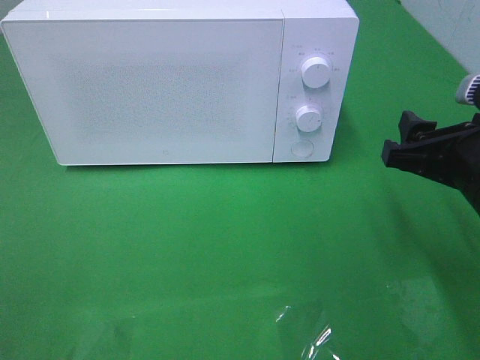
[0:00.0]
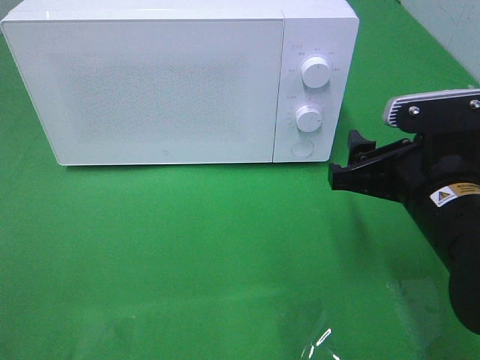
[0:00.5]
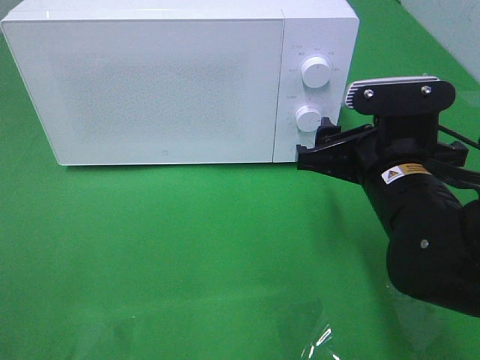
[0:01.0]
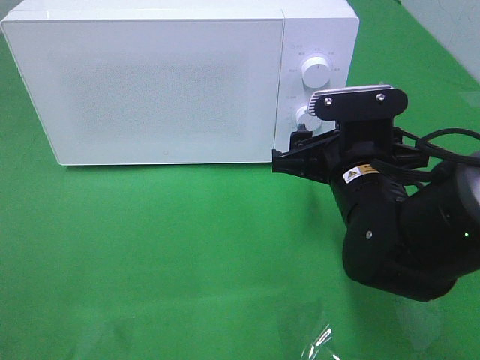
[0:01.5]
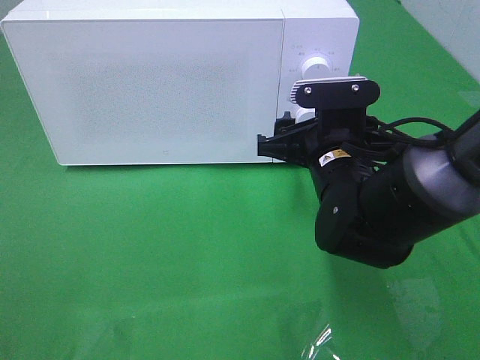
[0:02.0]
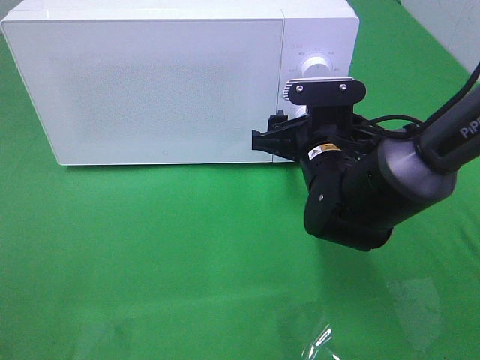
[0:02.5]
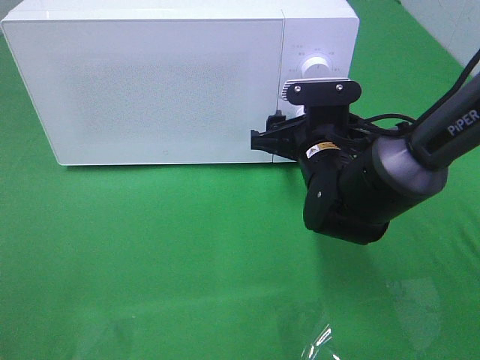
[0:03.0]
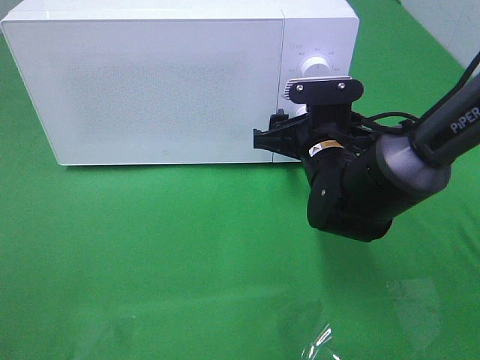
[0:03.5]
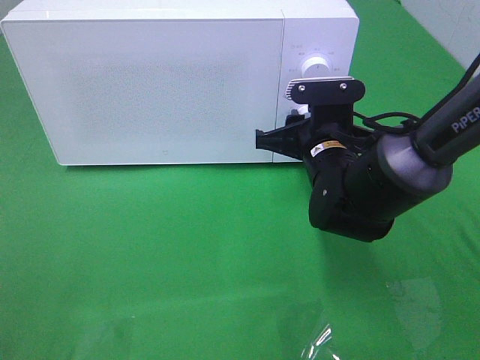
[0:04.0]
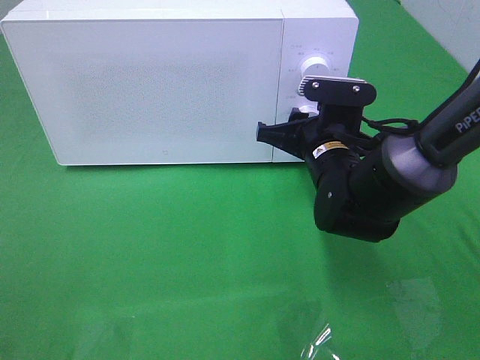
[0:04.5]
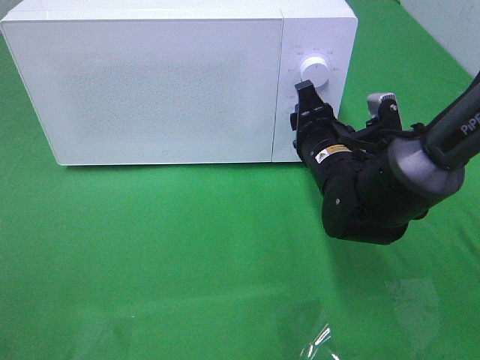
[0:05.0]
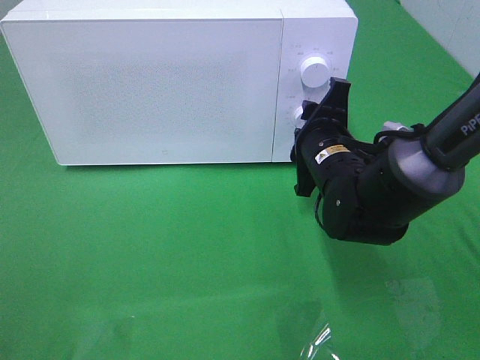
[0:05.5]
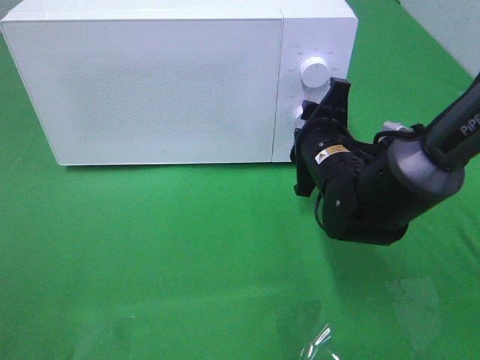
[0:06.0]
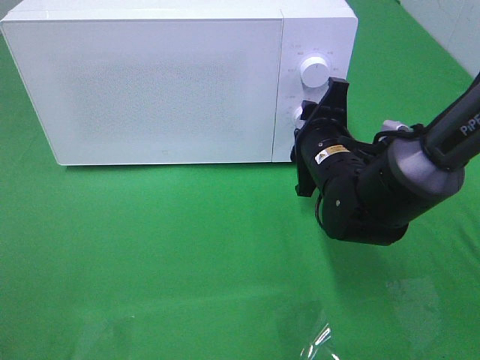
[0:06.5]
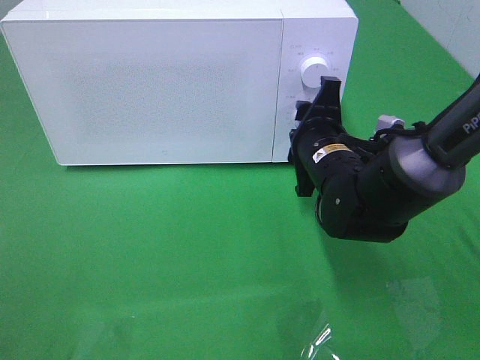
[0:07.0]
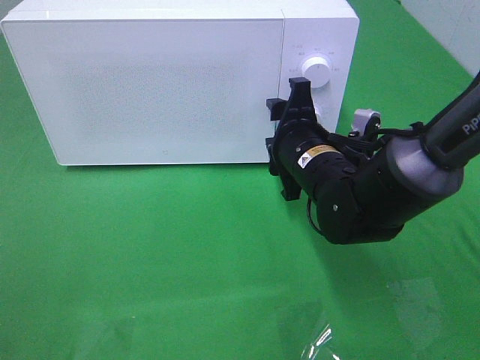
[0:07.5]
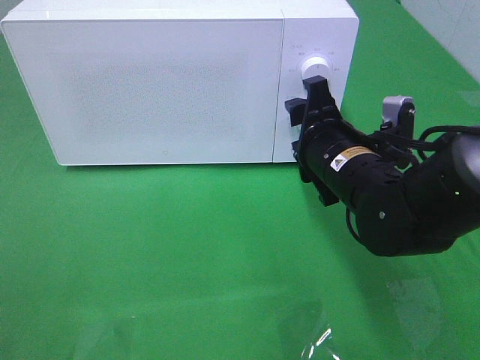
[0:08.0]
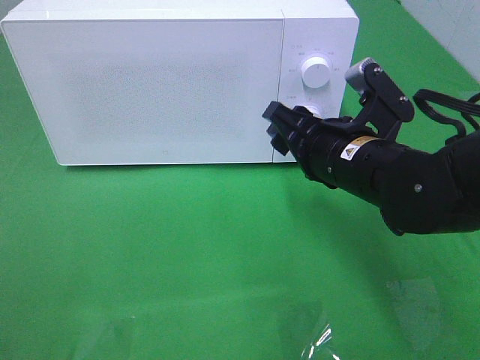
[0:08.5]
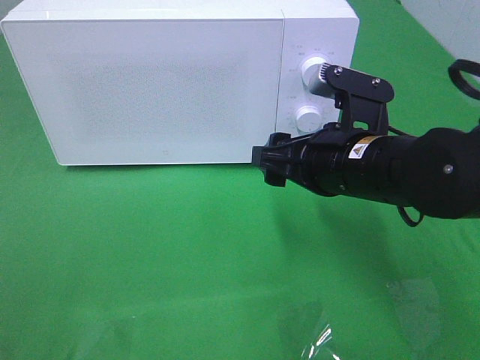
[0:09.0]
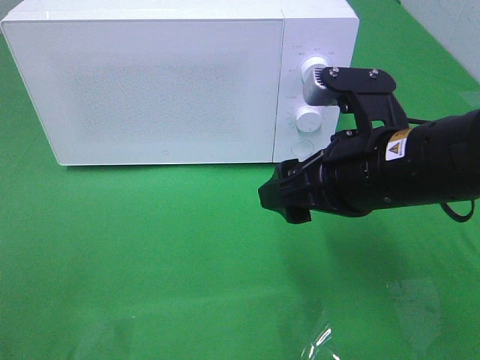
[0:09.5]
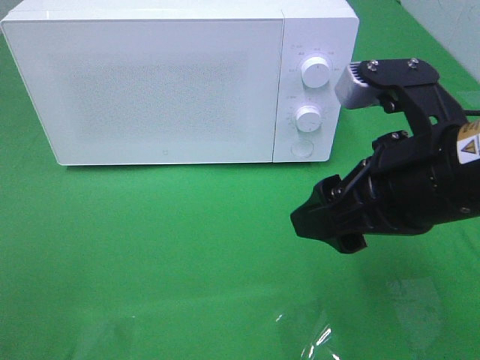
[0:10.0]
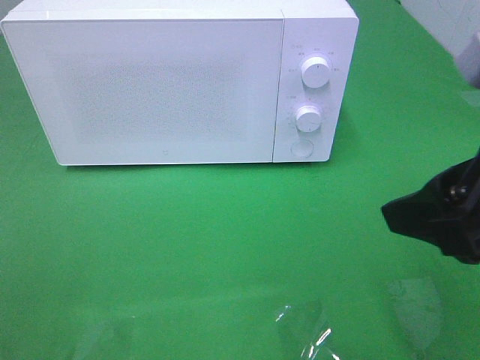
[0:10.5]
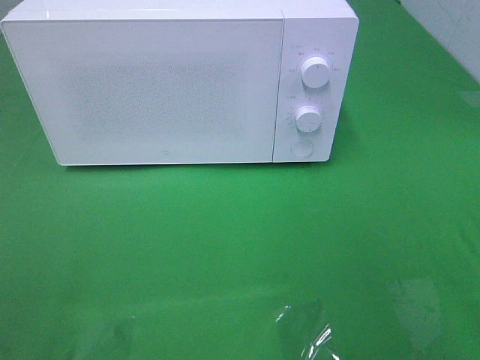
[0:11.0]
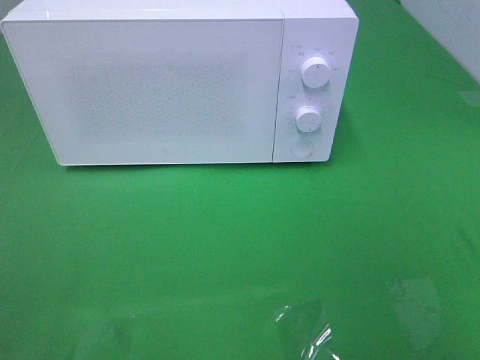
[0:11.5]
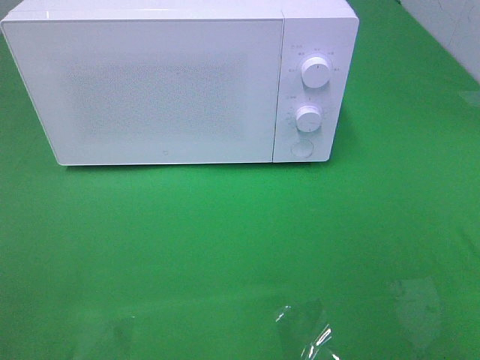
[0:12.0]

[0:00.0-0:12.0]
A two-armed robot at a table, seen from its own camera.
Task of the whole recording: Heat the burger.
Step, 0:00.0 to 0:07.5: Right hand: twist timer button.
0:00.0 to 0:02.0: The right gripper is displaced to the left and forward by about 15 cm.
0:02.0 to 0:04.0: The right gripper closes.
0:08.0 to 0:10.0: The right gripper is displaced backward and upward by roughly 15 cm.
0:10.0 to 0:12.0: The right gripper is displaced backward and to the right by about 25 cm.

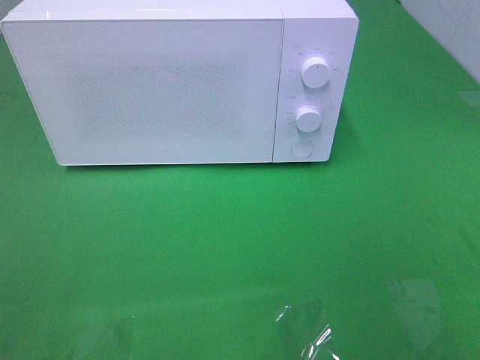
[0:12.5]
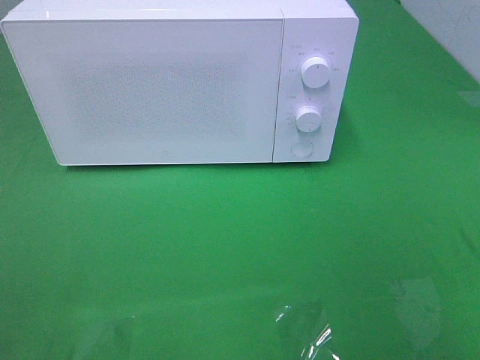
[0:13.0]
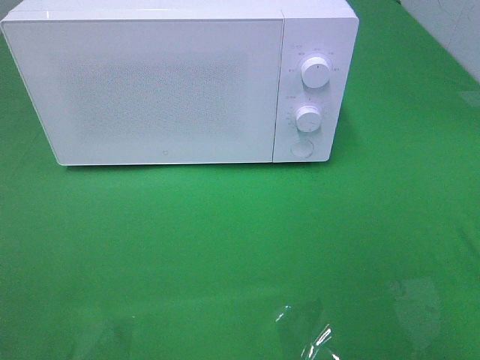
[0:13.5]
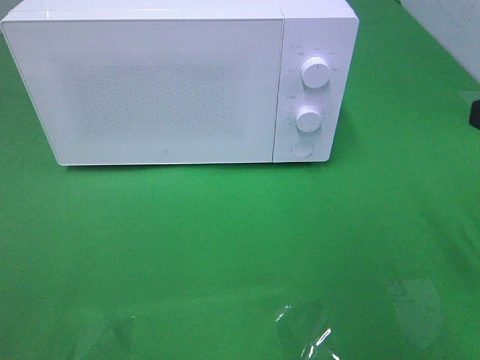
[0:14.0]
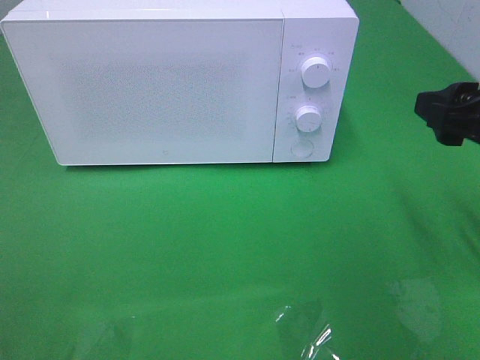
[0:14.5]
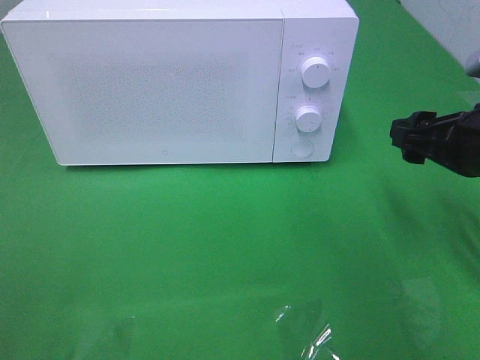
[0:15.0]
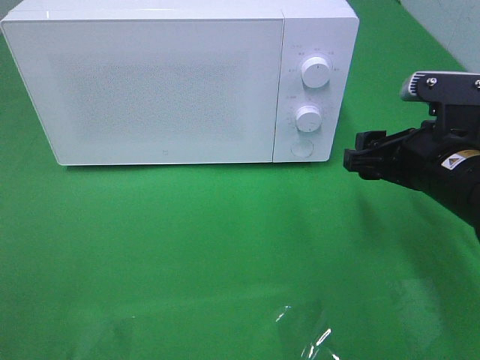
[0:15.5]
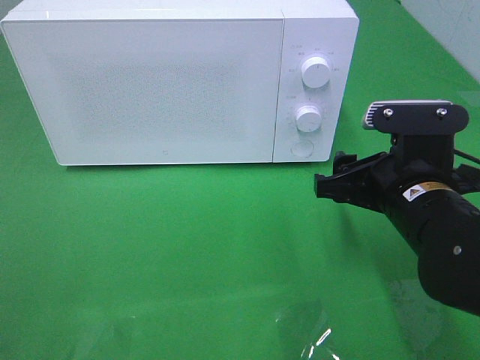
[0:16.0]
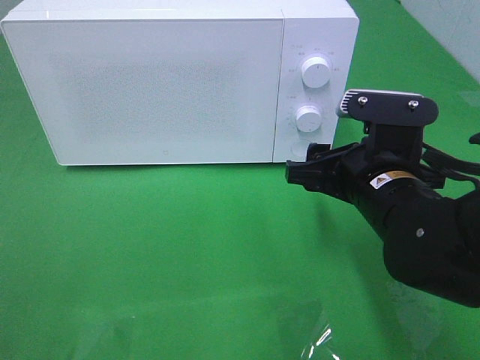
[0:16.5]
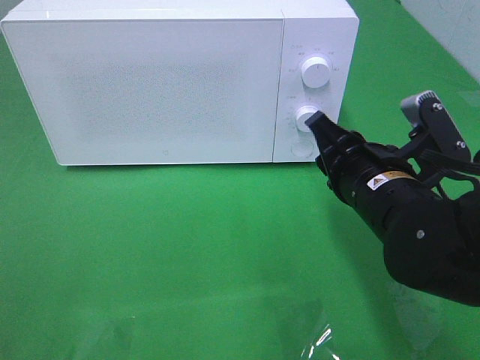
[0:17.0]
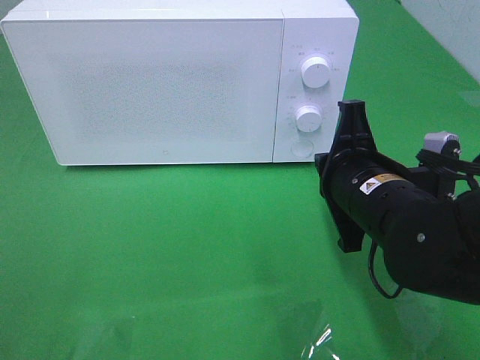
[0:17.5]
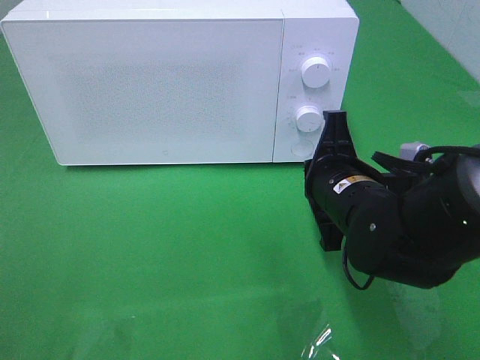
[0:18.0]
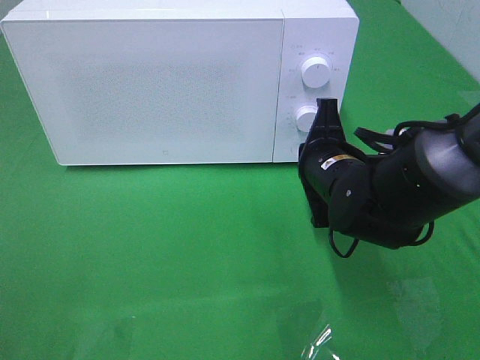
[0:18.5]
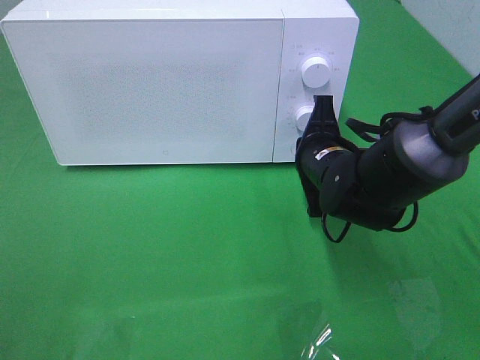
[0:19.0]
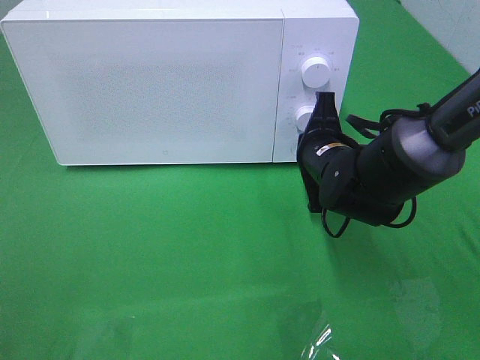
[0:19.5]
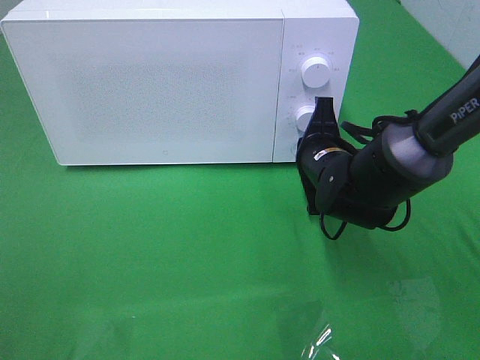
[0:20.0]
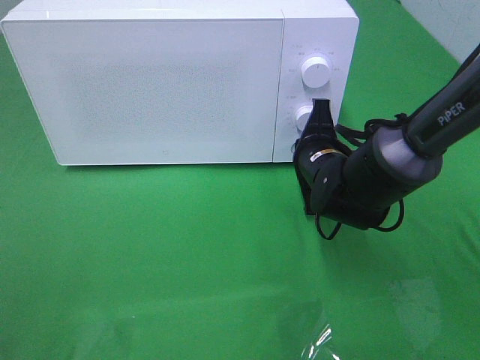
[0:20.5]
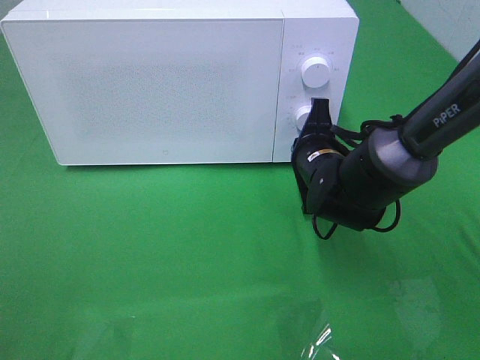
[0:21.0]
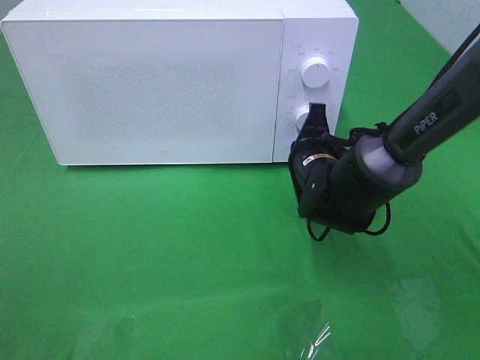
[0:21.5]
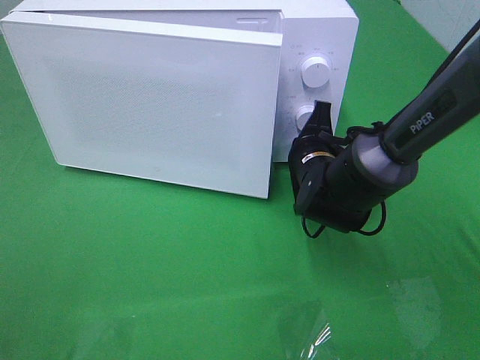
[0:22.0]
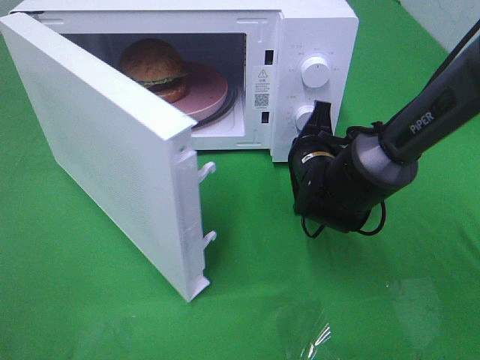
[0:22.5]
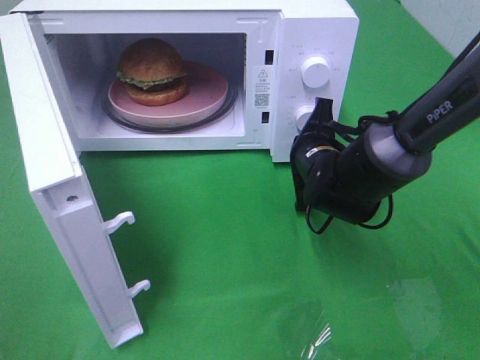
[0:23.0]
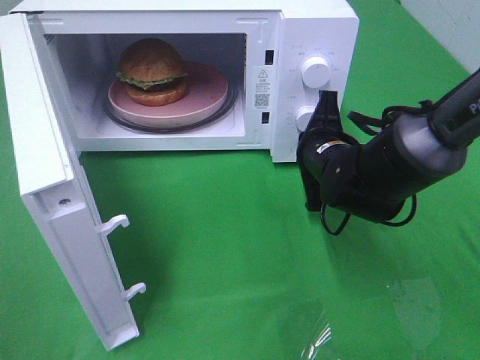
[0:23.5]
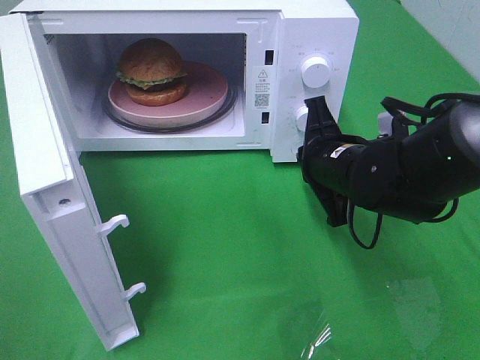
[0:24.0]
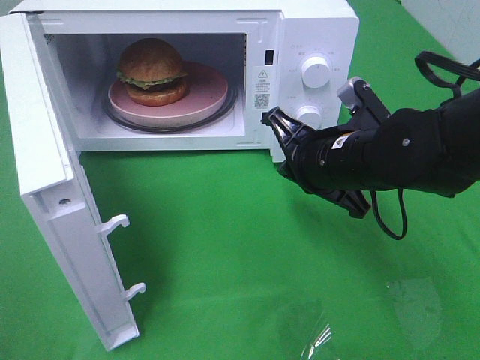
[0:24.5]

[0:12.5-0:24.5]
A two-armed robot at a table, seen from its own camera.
Task of the whole recording: Heat the burger.
Step, 0:12.5 to 0:23.5: Right hand: press the switch.
0:12.5 to 0:14.5: The right gripper is displaced forward by approximately 20 cm.
0:14.5 to 0:16.5: The right gripper goes about 15 cm to the left and downward.
0:16.5 to 0:18.5: The right gripper is displaced forward by approximately 5 cm, and closes.
0:18.5 to 0:20.5: The right gripper shifts by some 5 cm.
0:22.5 to 0:24.5: The right gripper goes some 10 cm upward and backward.

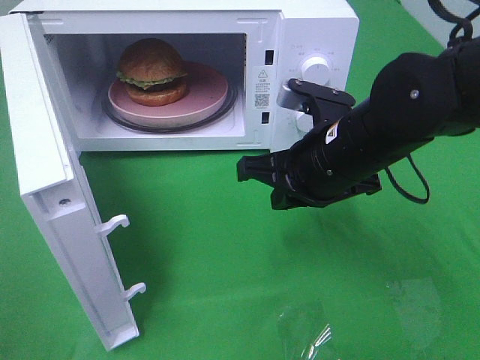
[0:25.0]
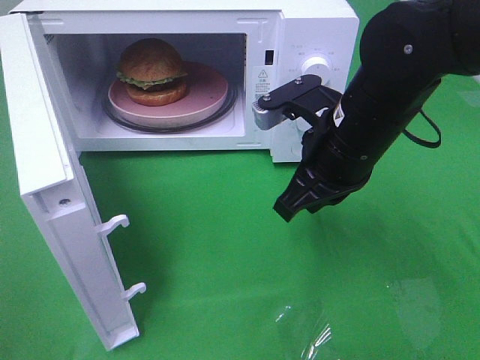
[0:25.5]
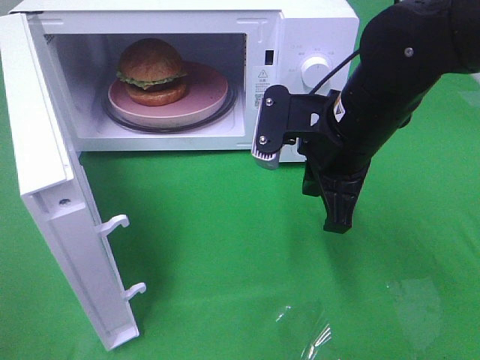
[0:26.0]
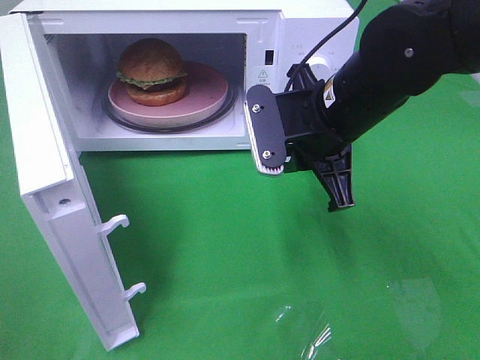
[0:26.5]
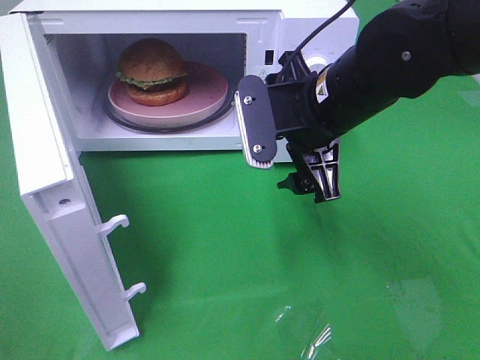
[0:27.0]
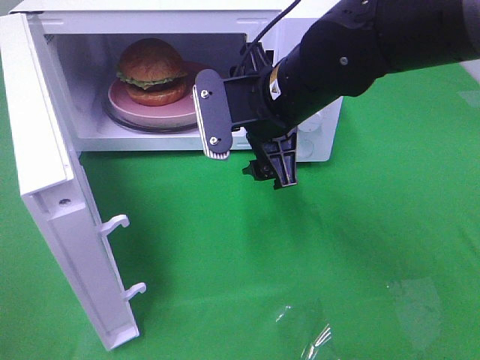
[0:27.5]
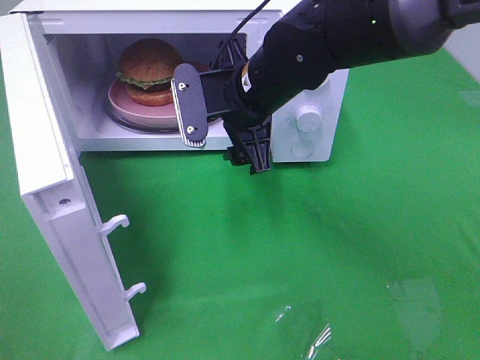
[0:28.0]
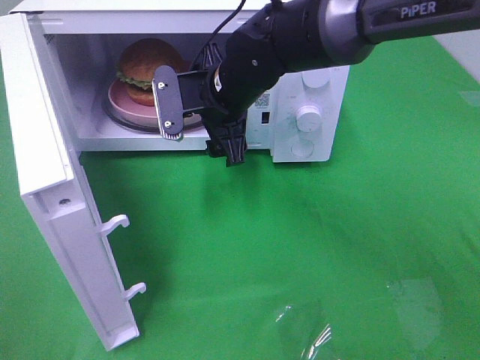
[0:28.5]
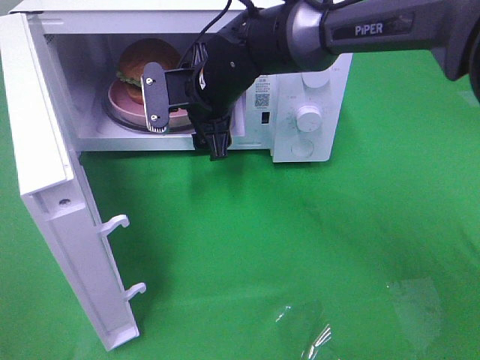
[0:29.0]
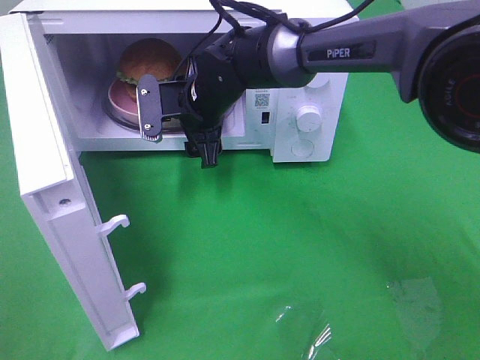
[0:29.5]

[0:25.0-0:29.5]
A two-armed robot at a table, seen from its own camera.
Task of the whole recording: Heat the burger.
0:25.0 to 0:27.0: The right gripper opens.
0:27.0 to 0:29.5: The right gripper goes about 20 cm to the left, forward and downward.
